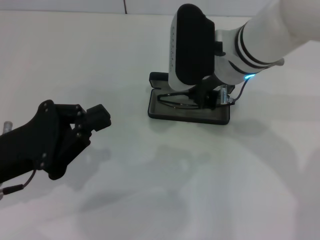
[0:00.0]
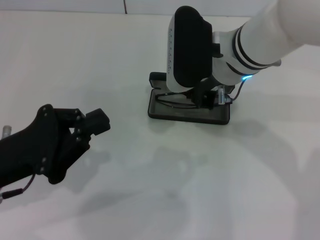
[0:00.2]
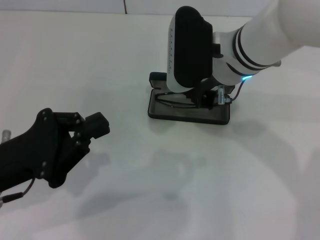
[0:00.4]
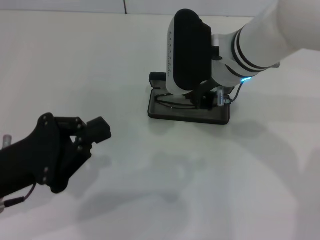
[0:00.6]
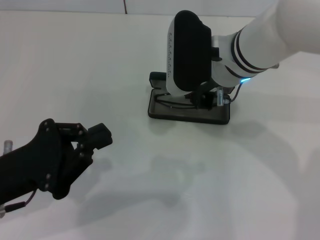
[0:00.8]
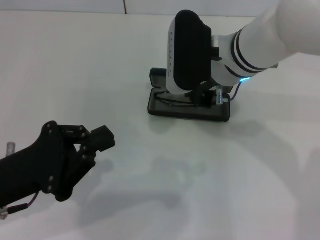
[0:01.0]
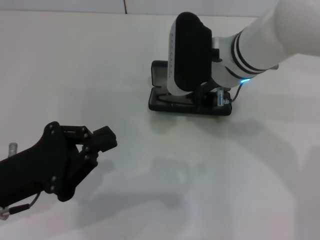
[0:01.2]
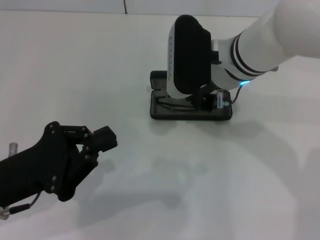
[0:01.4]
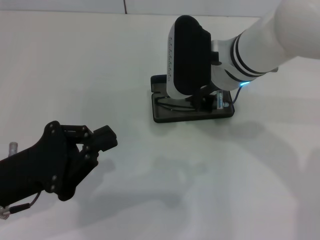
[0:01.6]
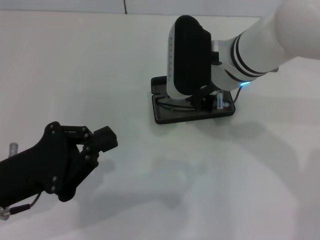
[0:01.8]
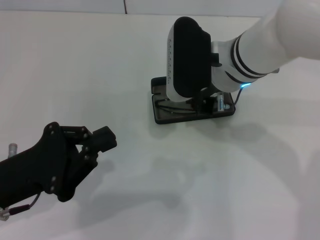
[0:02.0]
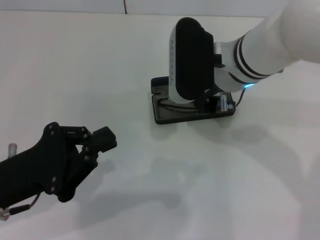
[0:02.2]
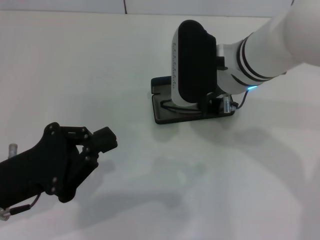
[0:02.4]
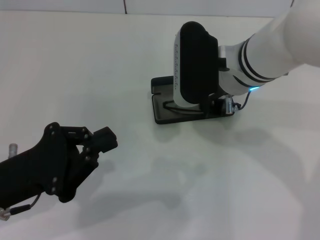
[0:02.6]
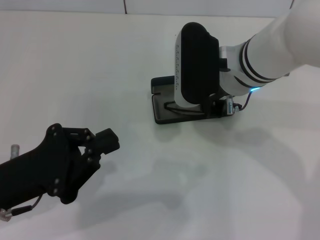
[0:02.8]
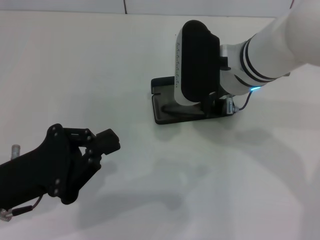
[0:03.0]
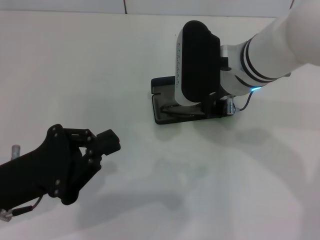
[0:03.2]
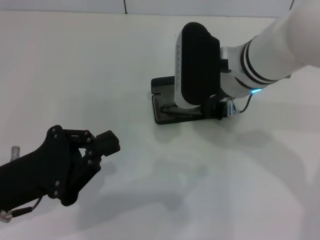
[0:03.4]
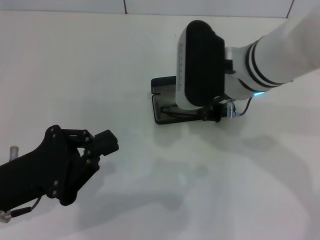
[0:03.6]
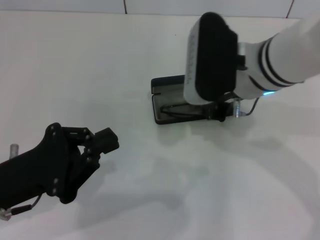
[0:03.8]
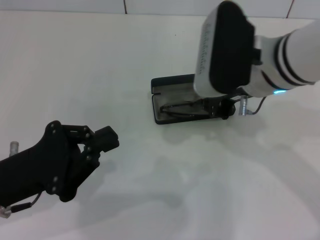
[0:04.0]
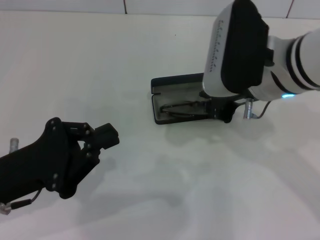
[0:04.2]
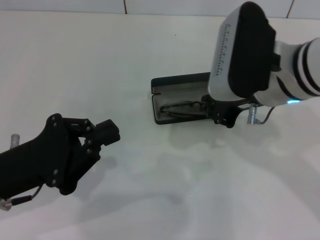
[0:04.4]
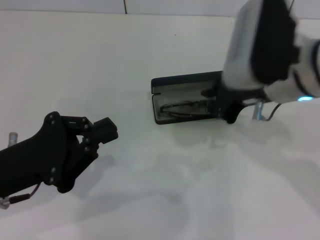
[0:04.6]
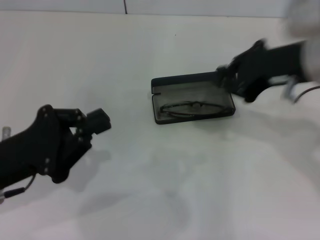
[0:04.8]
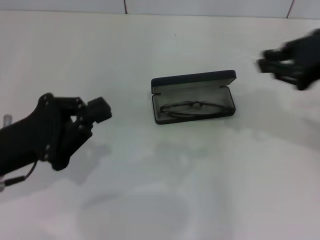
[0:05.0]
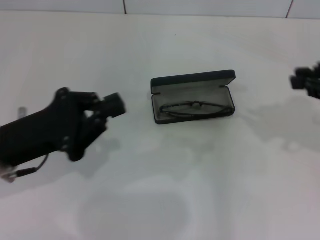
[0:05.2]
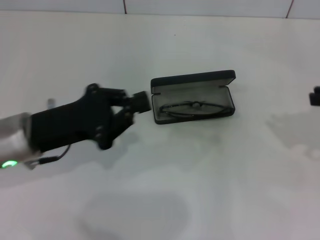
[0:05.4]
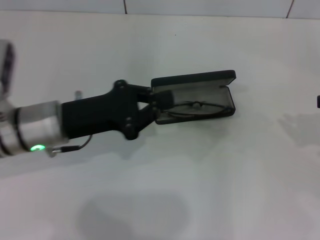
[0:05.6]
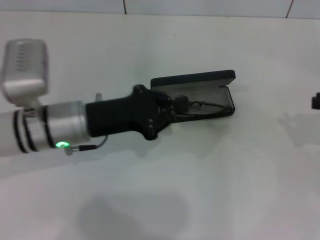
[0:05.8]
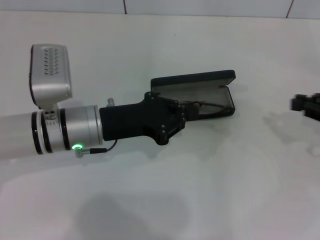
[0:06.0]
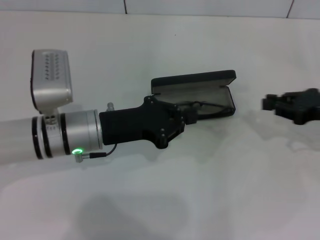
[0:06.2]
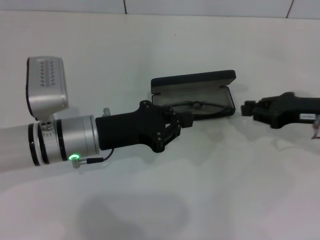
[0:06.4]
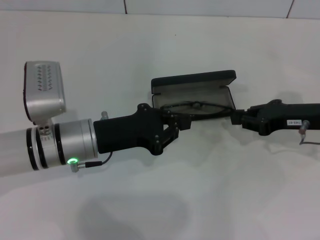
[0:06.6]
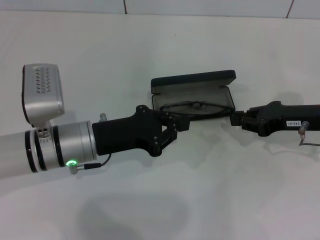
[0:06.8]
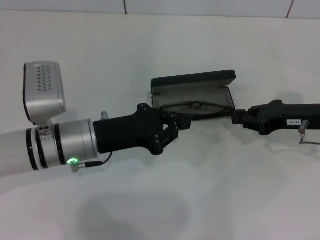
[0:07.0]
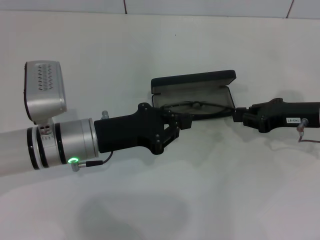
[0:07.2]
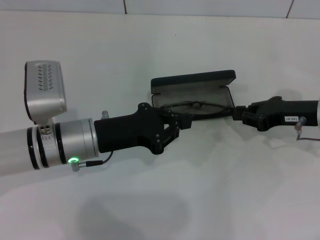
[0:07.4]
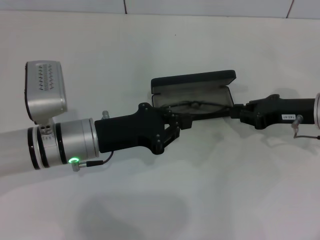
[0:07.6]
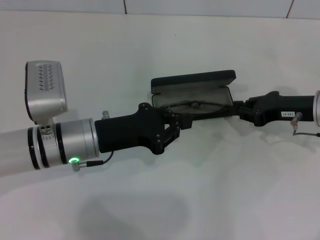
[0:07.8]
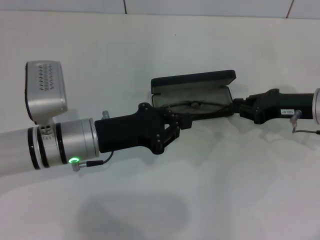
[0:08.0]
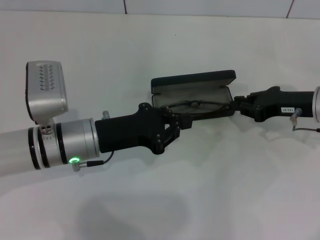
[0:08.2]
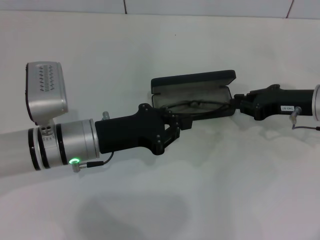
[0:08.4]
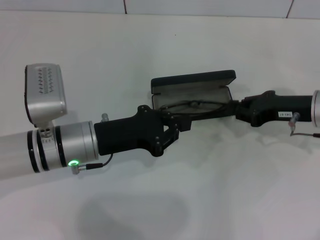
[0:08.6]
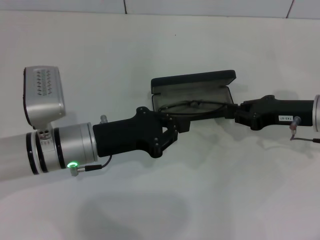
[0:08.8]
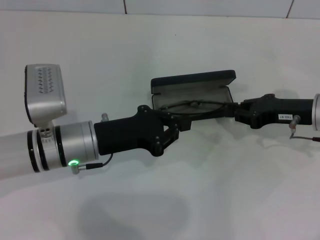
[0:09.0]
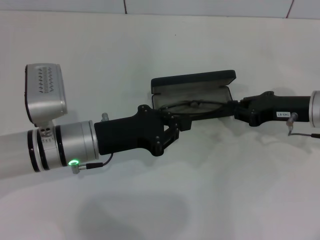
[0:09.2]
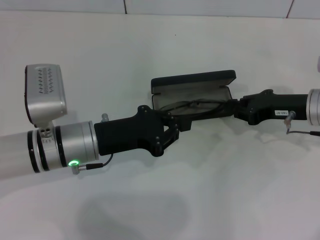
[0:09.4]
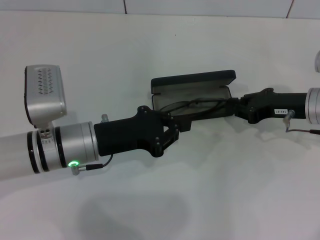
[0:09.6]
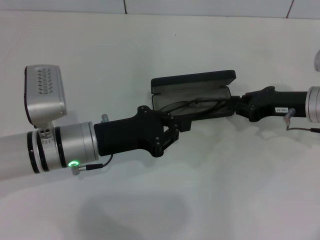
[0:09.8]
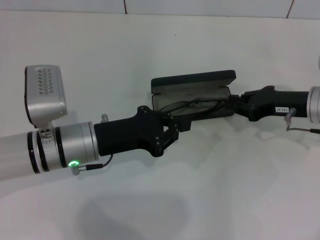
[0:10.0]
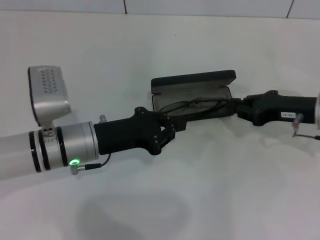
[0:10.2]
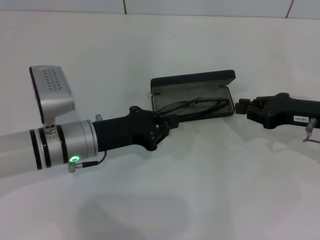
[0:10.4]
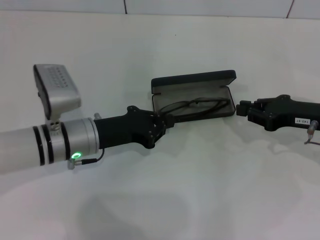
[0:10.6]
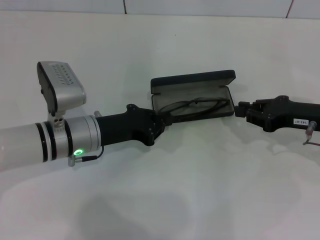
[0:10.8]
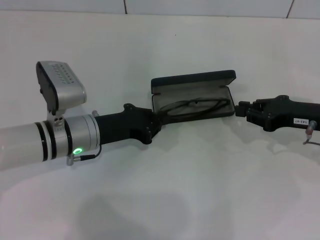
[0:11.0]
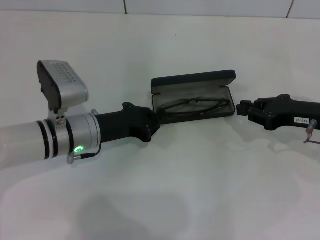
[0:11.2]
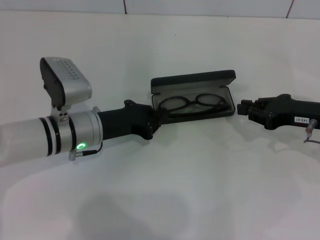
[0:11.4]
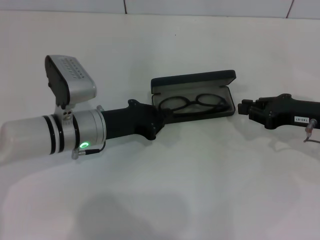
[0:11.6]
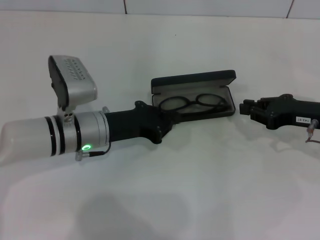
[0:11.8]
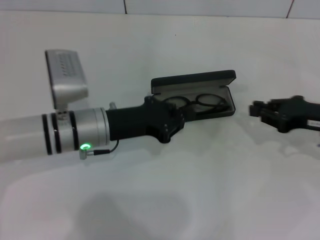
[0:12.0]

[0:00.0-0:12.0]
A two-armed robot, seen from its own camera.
Step, 0:00.0 to 0:03.6: Put the glasses into the case with your right hand.
0:00.0 to 0:03.0: The grippers make only small movements.
0:03.0 to 0:04.4: The right gripper ends up about 5 cm from where it was.
0:04.4 to 0:06.0: The right gripper heads to the right, covering roughly 20 cm. Meanwhile the left gripper is displaced forward and to the right by about 15 cm.
0:06.0 to 0:07.6: The right gripper heads to the left and forward, covering about 10 cm.
0:07.6 to 0:09.0: Both grippers stay about where they are.
0:09.0 to 0:12.0: The grippers move only a little.

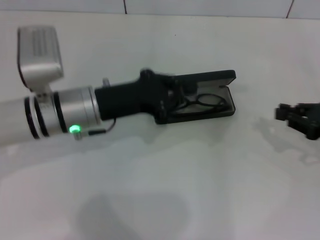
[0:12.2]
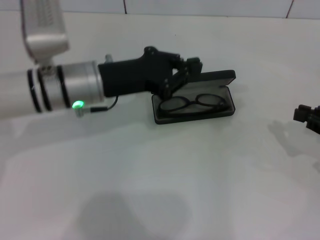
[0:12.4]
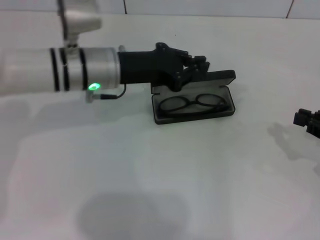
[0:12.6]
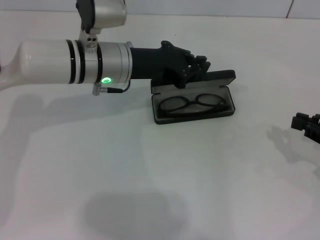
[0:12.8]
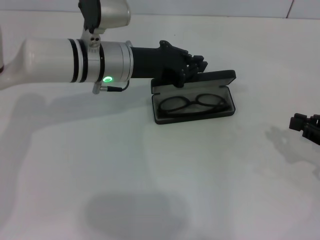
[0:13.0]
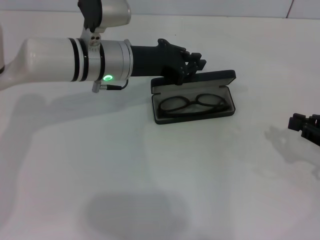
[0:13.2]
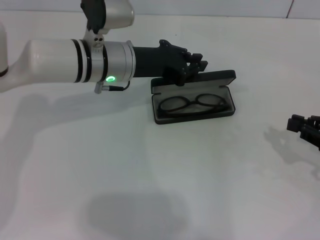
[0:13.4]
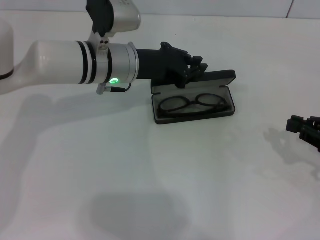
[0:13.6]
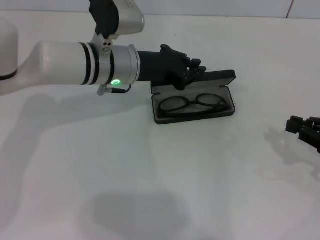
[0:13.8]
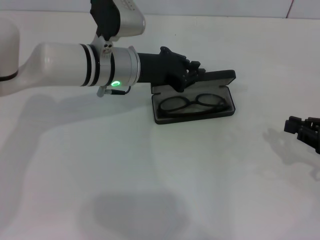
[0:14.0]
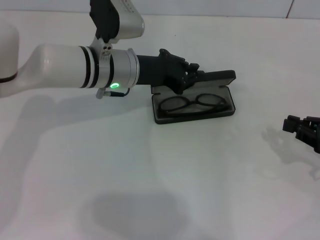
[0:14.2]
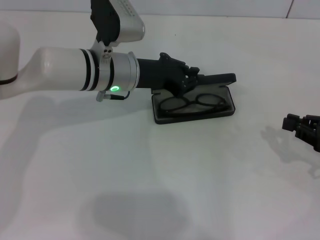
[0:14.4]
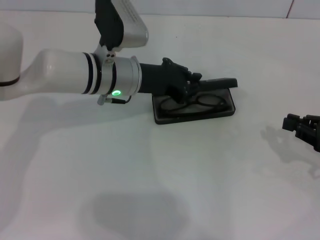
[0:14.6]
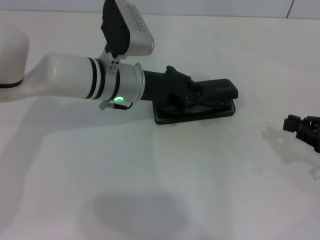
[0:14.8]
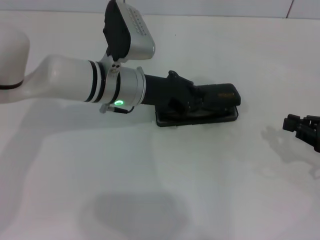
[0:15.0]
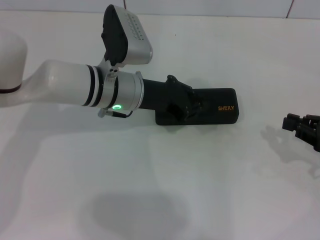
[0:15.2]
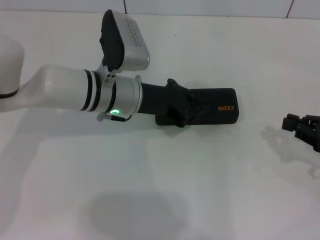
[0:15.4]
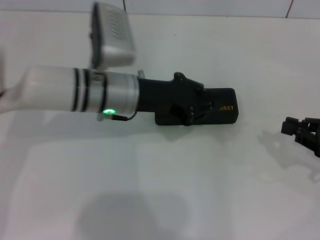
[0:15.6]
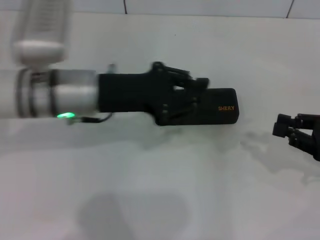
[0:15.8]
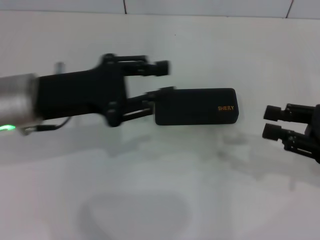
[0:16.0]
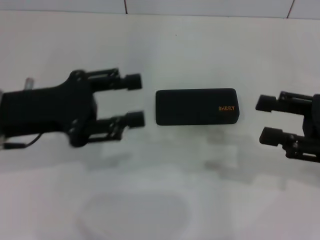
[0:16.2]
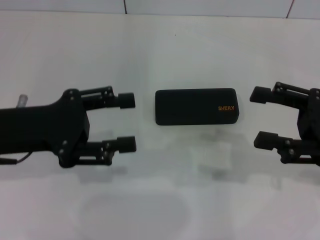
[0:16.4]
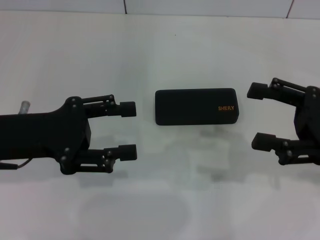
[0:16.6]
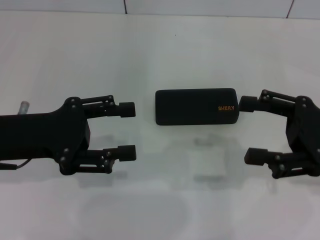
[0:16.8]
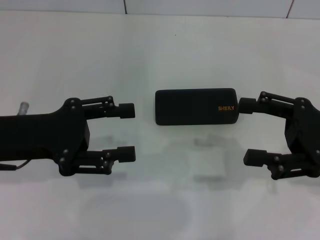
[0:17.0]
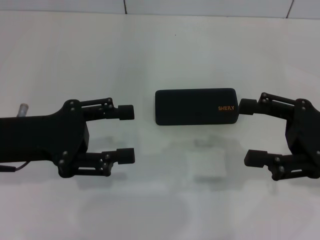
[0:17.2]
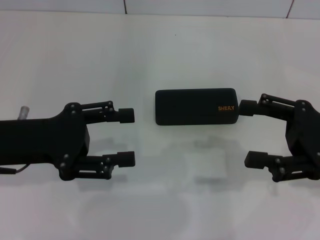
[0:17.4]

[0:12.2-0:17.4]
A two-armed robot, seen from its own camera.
Step, 0:12.2 to 0:15.2: Close the glasses case with your left hand.
0:12.2 to 0:14.0: The left gripper shifts approximately 10 cm forward and to the right.
0:14.0 to 0:15.6: The grippers move only a little.
0:15.6 to 0:17.4: The left gripper travels to the left and backward by approximately 15 cm, and opens its fingers. Meanwhile the right gripper moves to the left and upward, approximately 10 cm, and opens its fingers.

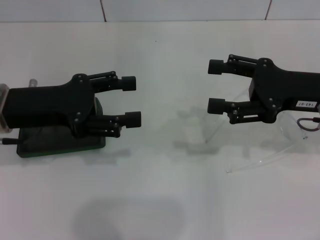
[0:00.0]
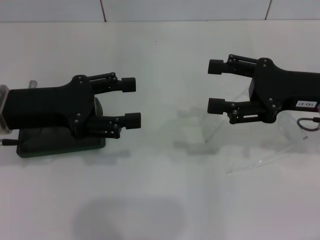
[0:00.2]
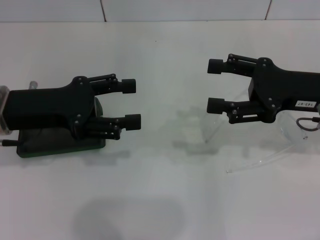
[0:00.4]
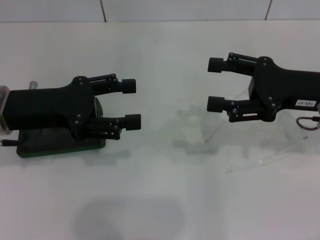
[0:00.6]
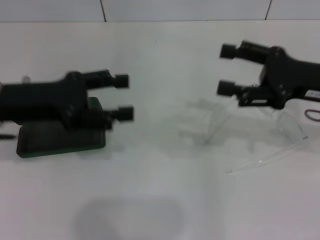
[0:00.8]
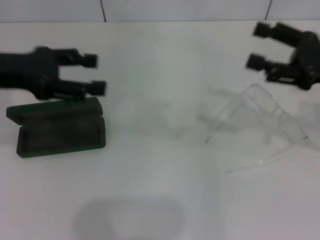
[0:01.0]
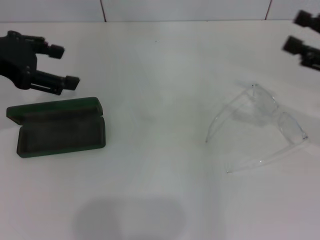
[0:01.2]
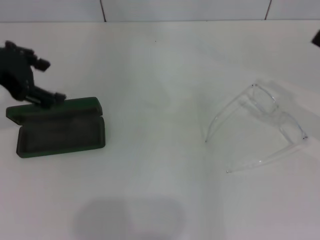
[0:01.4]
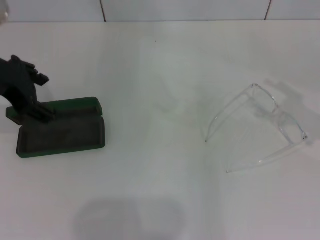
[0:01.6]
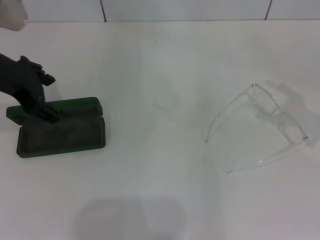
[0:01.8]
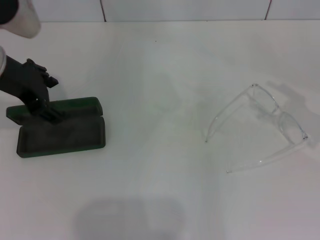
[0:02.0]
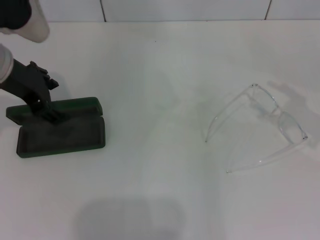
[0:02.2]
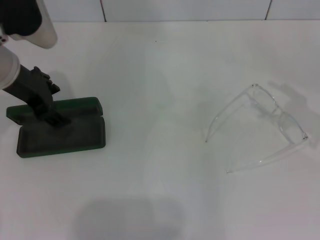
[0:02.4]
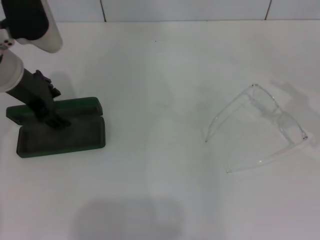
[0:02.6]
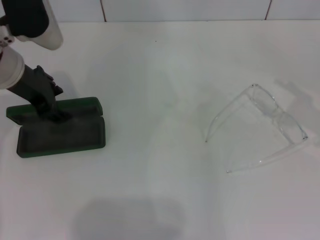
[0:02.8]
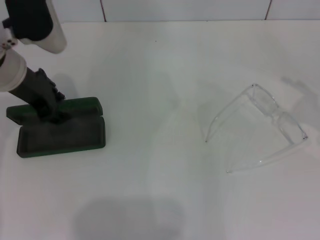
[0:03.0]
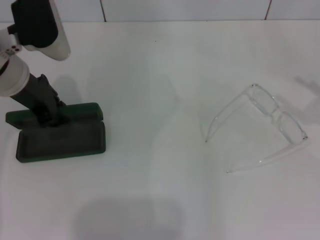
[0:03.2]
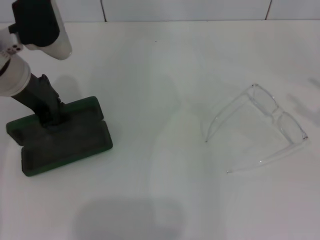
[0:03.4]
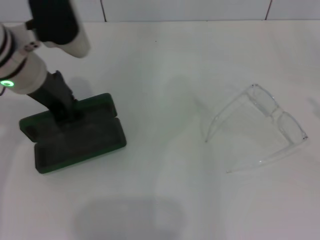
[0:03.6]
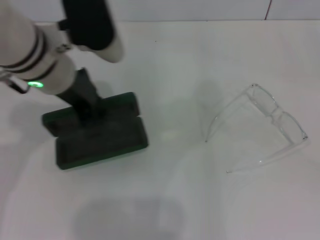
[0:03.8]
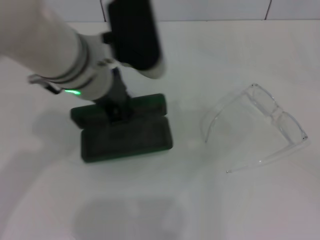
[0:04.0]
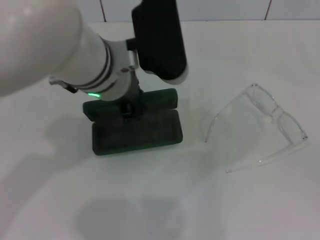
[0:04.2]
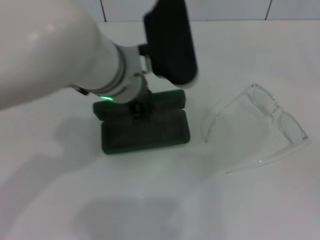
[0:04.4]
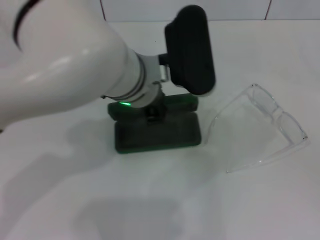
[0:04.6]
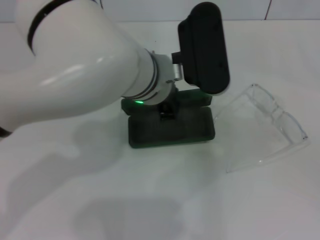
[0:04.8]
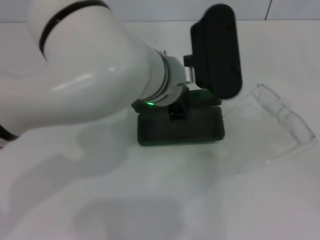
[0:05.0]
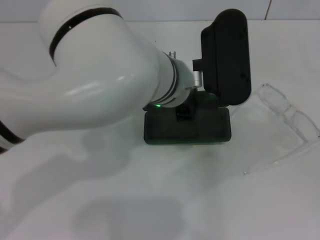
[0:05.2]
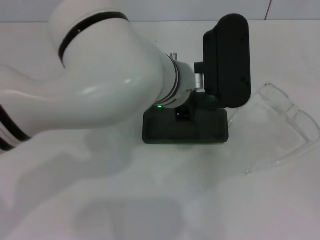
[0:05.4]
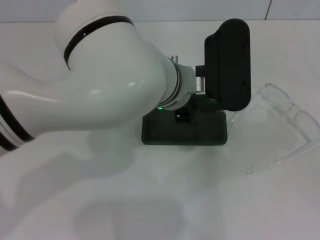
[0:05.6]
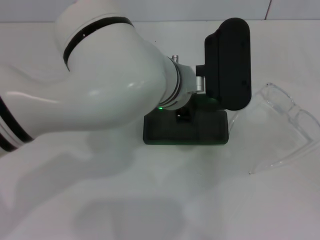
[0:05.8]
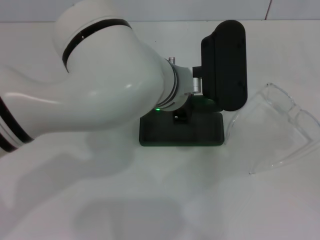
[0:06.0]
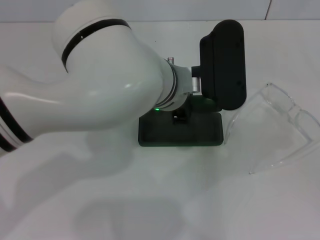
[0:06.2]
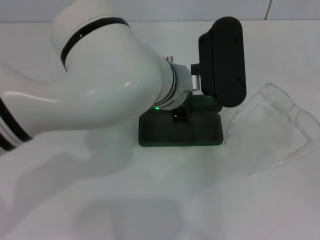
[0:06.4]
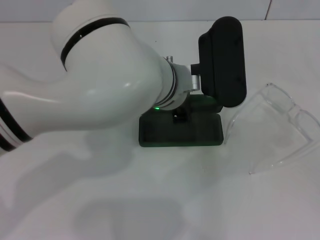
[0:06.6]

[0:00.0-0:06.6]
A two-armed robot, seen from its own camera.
Step, 0:00.0 to 0:03.0: Grab the glasses case with your left hand.
0:00.0 to 0:01.6: The left gripper travels upward by approximately 10 cm, while the right gripper travels to the right by roughly 10 cm.
0:01.6 to 0:03.2: The left gripper heads downward, covering roughly 5 cm, and closes up.
0:03.2 to 0:05.0: The right gripper is displaced backward and to the right by roughly 10 cm; the left gripper travels to the right by about 20 cm, and closes up.
0:05.0 to 0:06.6: The grippers move only a little.
